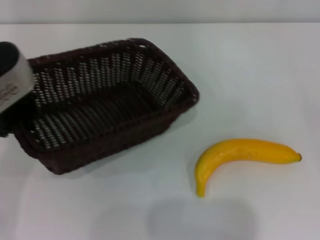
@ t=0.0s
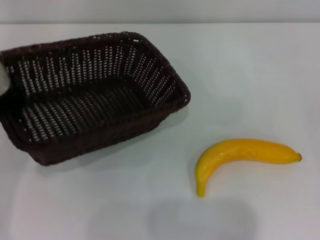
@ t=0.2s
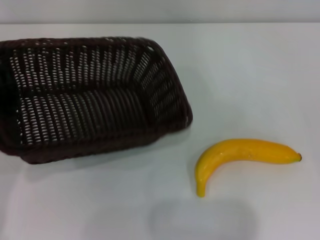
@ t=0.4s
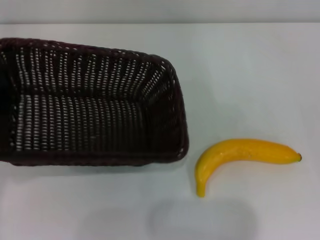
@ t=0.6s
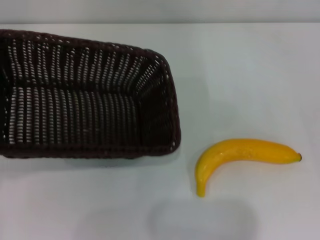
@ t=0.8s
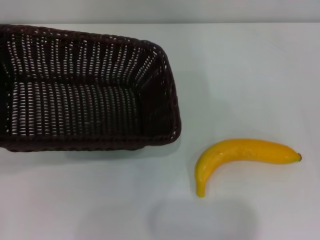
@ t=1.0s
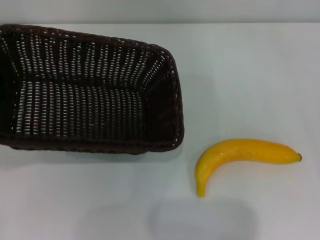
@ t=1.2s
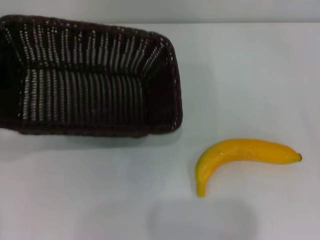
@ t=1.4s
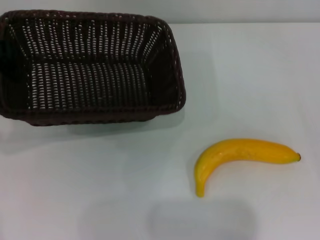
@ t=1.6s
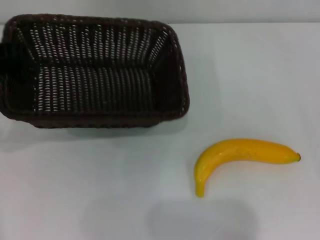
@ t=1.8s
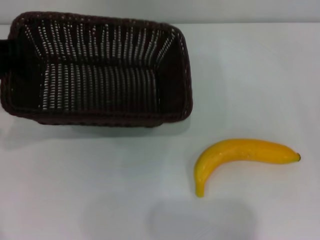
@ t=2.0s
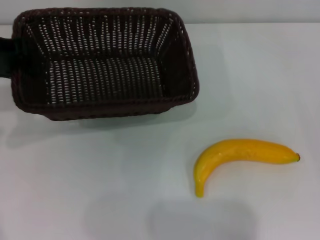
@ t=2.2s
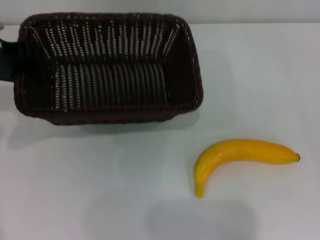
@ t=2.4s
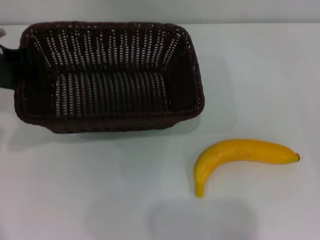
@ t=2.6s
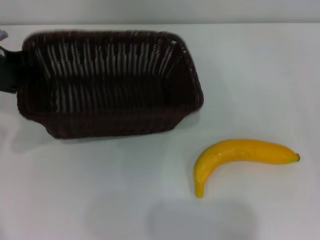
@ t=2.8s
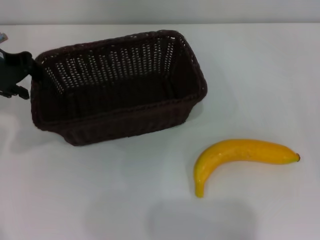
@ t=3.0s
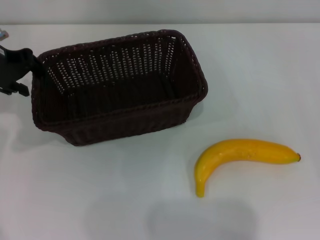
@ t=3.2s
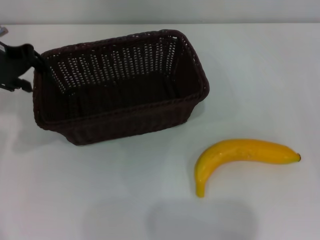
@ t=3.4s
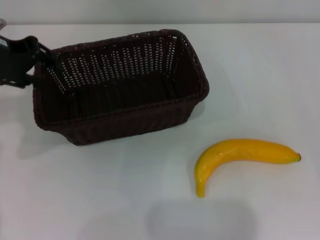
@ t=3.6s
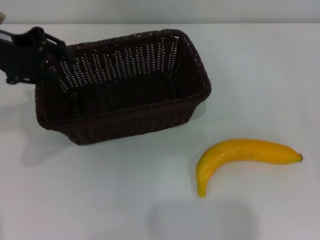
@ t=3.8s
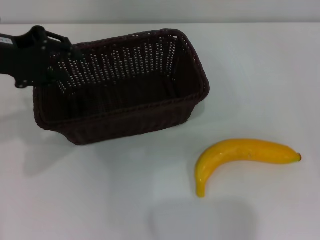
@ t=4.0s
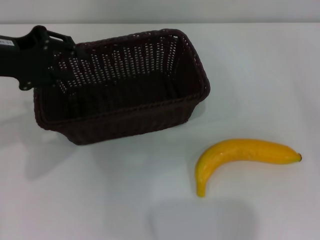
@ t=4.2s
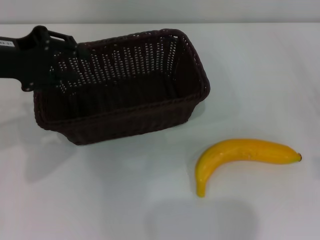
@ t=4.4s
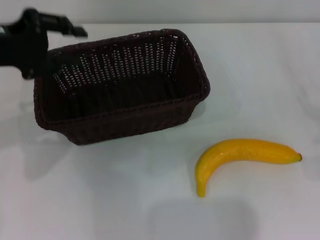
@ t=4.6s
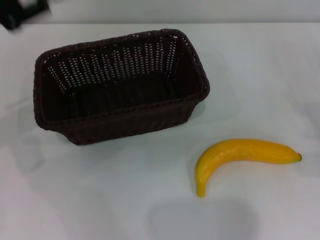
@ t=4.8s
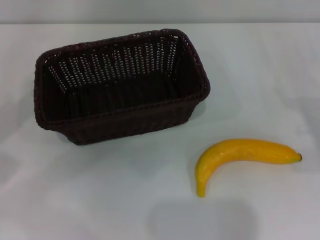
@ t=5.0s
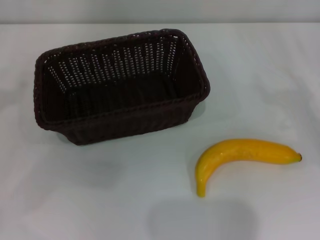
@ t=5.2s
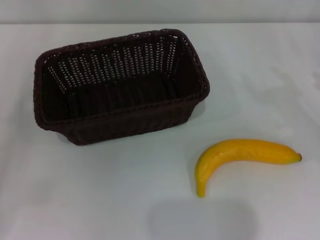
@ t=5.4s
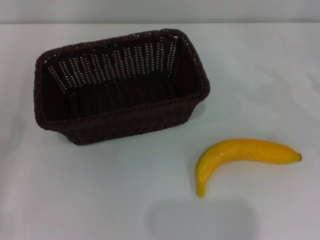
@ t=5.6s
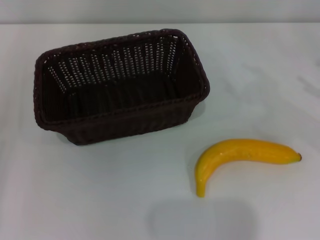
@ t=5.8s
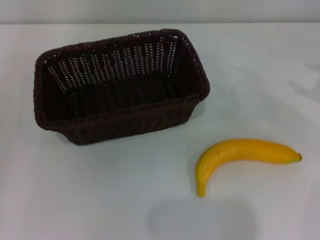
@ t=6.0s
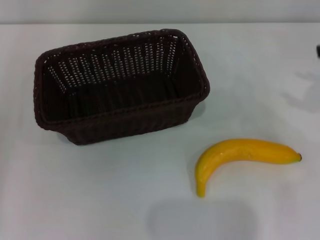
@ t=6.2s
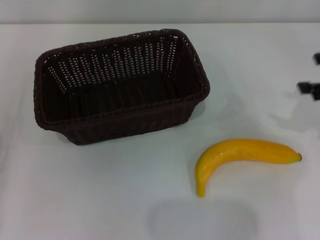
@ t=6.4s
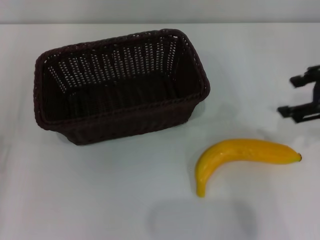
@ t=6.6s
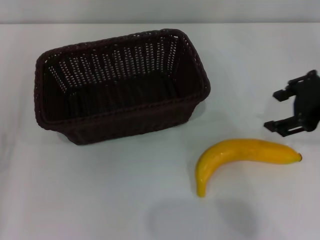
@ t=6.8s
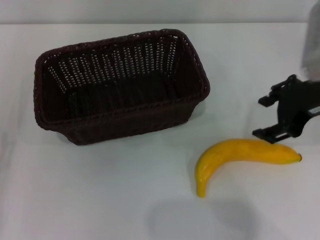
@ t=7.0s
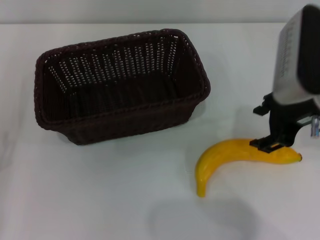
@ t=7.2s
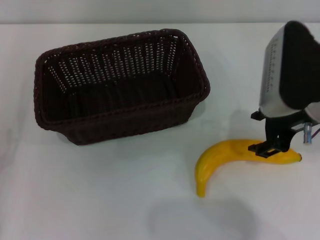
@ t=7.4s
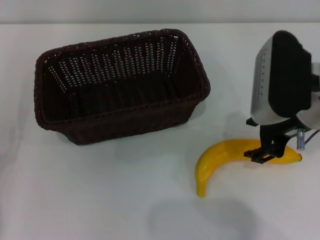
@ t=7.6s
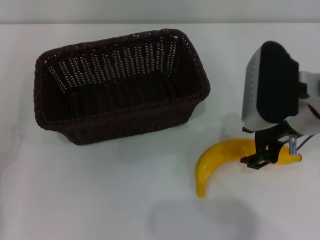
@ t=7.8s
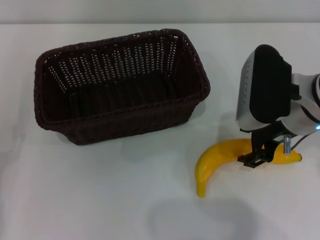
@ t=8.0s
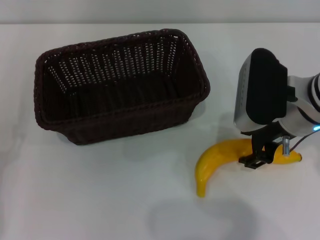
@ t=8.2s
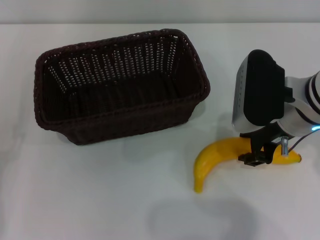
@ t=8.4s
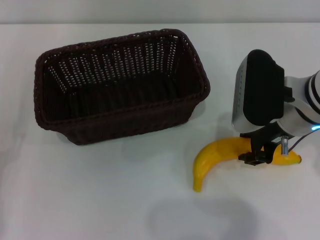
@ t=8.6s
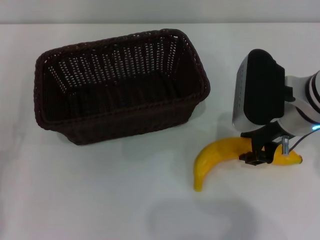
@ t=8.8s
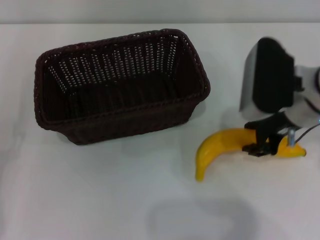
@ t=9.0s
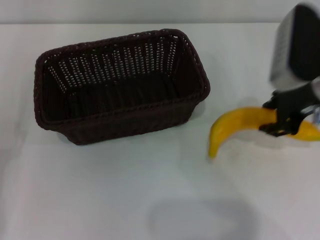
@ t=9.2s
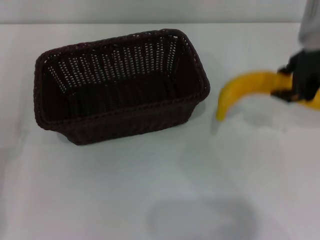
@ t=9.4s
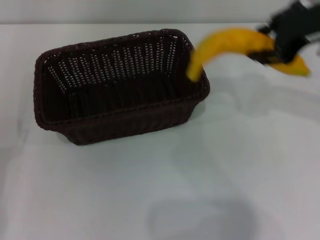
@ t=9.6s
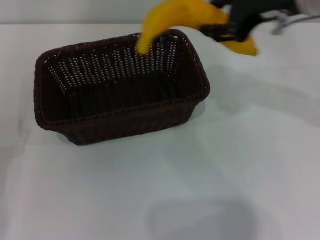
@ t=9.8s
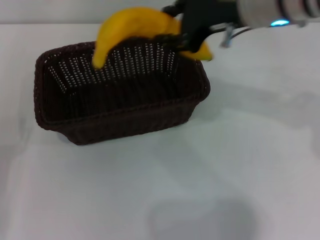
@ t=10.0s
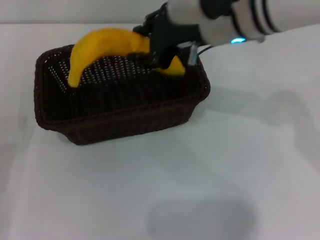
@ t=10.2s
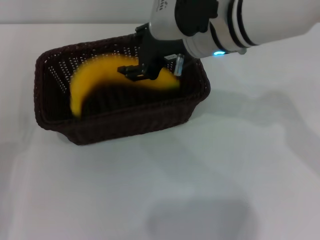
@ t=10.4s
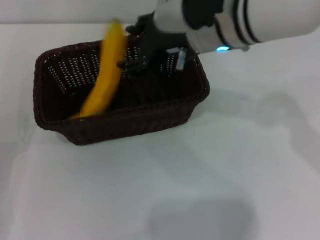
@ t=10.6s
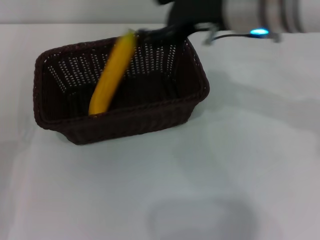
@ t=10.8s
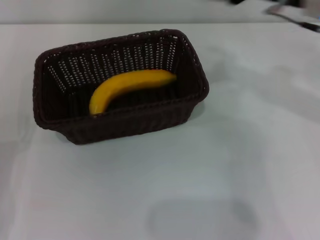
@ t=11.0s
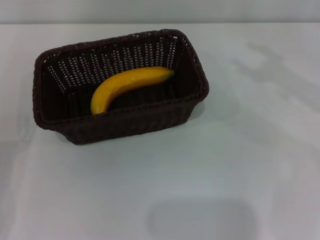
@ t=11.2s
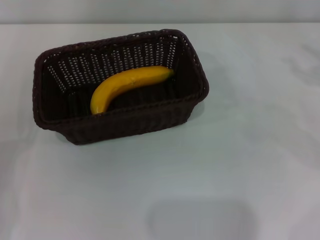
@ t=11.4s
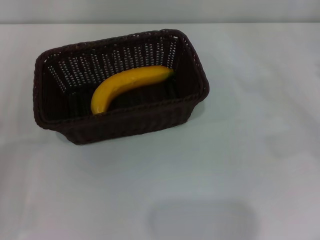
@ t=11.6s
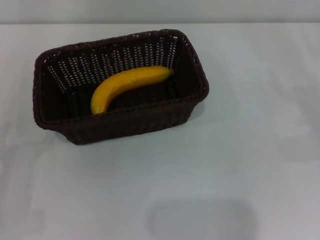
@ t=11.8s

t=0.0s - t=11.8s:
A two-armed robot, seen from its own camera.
Step, t=0.0s - t=3.8s: Place the dark basket in the center of view with the left gripper.
Step, t=4.0s - t=9.2s: Pick up the banana with the right gripper.
Step, t=9.4s - t=10.8s: Place the banana into the dark basket with the right gripper.
t=0.0s - t=1.4s: The left gripper heads to the left, covering roughly 5 cm.
t=1.4s - t=3.0s: The left gripper moves some 5 cm.
t=3.0s - t=4.4s: The left gripper travels backward by some 5 cm, and opens up.
t=4.4s - t=6.0s: The left gripper shifts about 30 cm downward, backward and to the left, and opens.
t=6.0s - t=7.4s: The right gripper heads to the left, covering roughly 20 cm.
t=7.4s - t=8.8s: The right gripper closes up.
t=8.8s - t=10.4s: The right gripper travels to the left, upward and forward by about 15 cm.
t=10.4s - t=11.8s: The right gripper shifts about 35 cm to the right and downward, and opens its fingers.

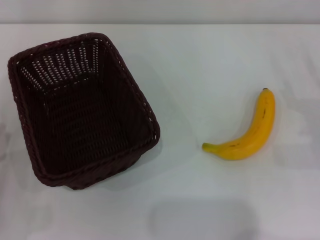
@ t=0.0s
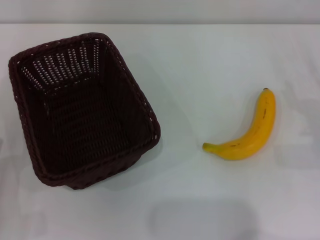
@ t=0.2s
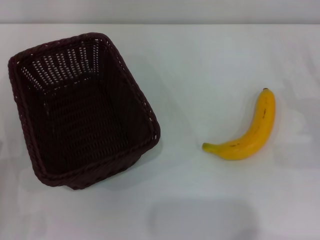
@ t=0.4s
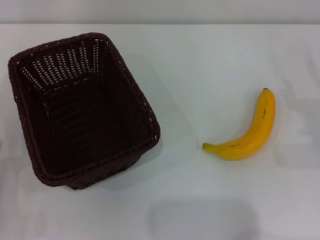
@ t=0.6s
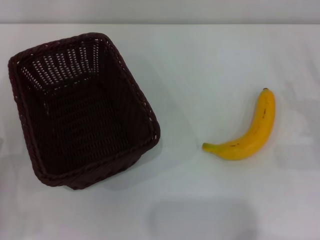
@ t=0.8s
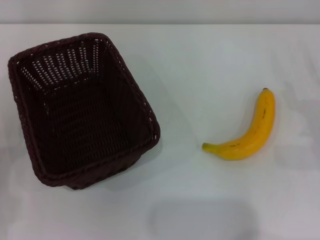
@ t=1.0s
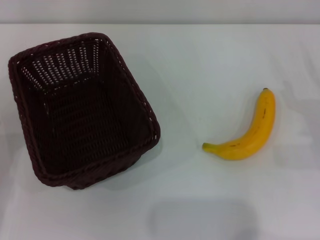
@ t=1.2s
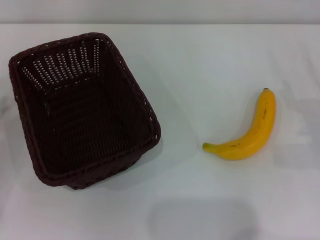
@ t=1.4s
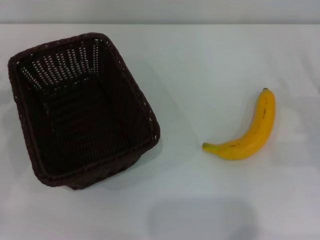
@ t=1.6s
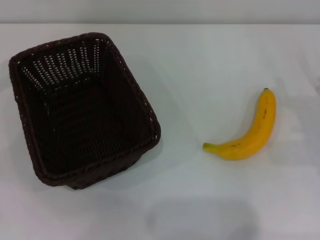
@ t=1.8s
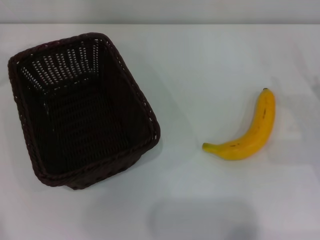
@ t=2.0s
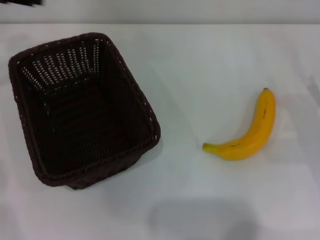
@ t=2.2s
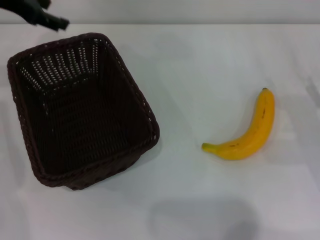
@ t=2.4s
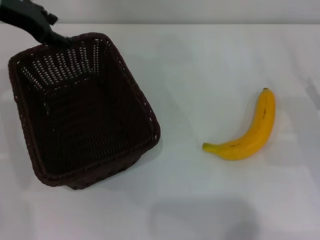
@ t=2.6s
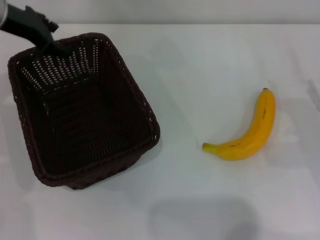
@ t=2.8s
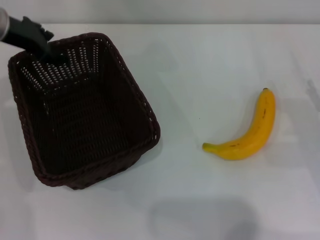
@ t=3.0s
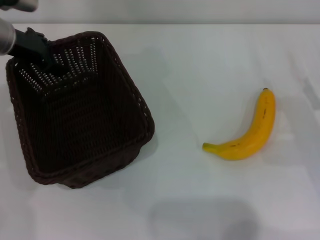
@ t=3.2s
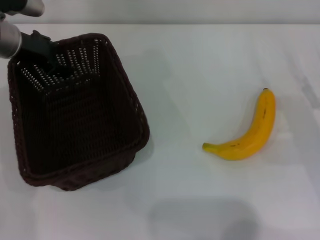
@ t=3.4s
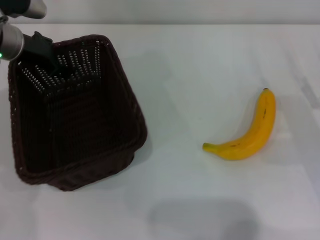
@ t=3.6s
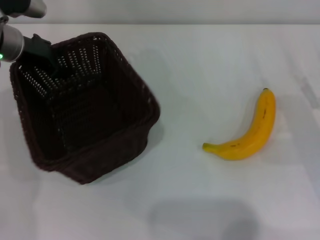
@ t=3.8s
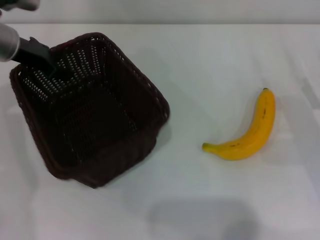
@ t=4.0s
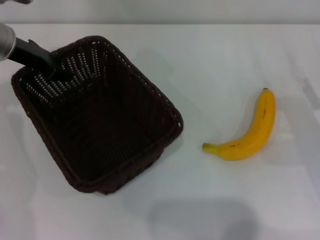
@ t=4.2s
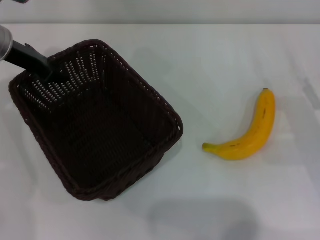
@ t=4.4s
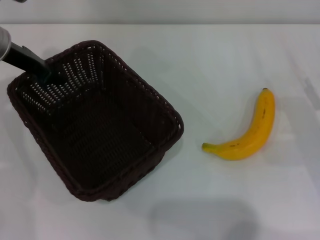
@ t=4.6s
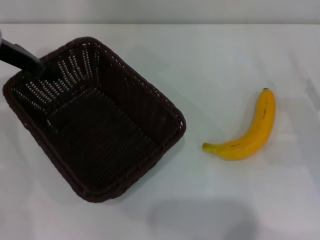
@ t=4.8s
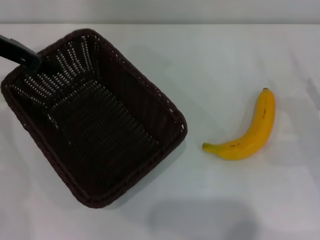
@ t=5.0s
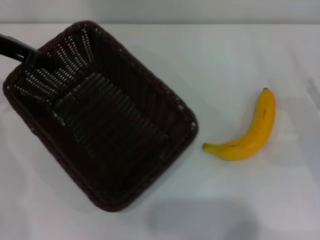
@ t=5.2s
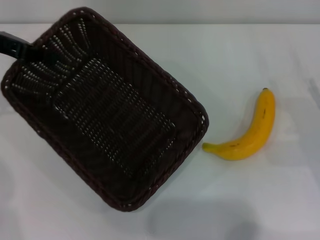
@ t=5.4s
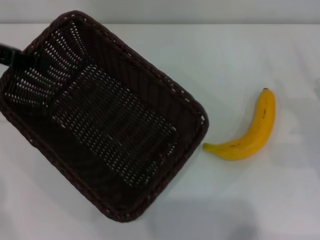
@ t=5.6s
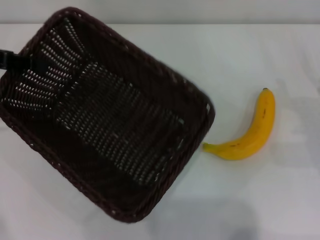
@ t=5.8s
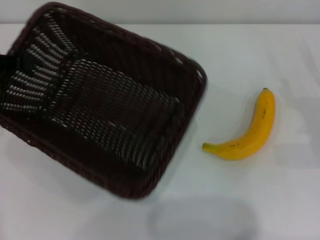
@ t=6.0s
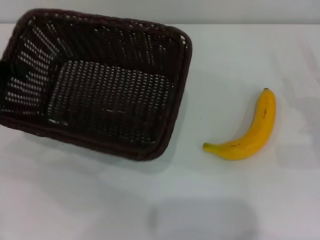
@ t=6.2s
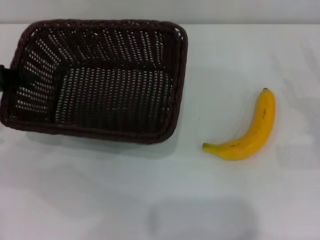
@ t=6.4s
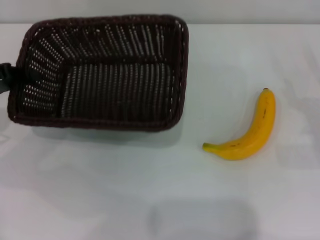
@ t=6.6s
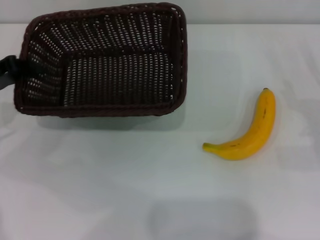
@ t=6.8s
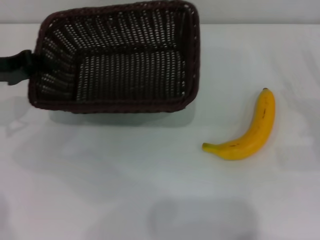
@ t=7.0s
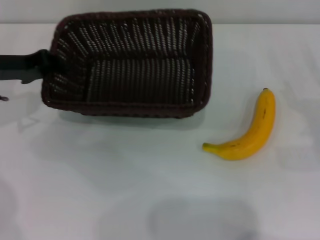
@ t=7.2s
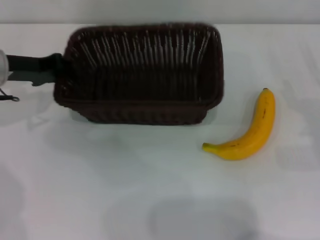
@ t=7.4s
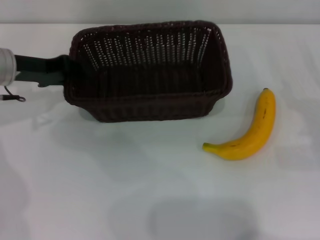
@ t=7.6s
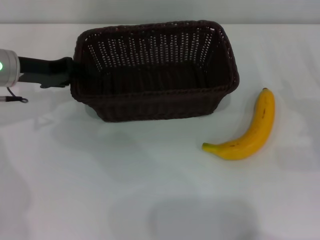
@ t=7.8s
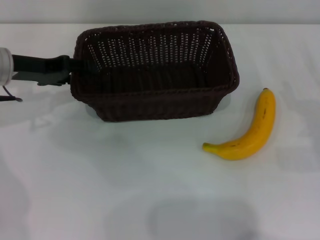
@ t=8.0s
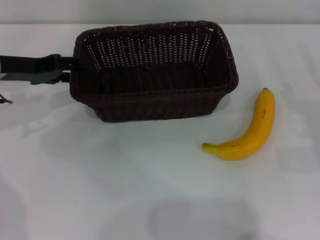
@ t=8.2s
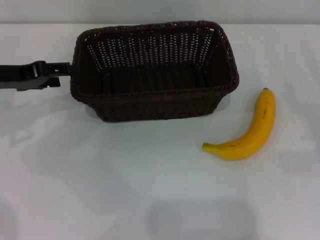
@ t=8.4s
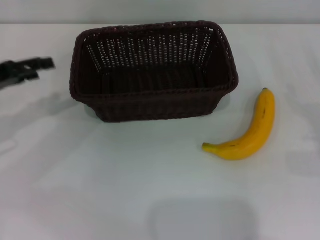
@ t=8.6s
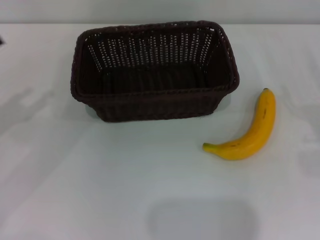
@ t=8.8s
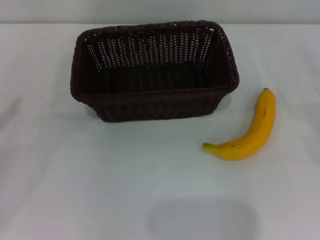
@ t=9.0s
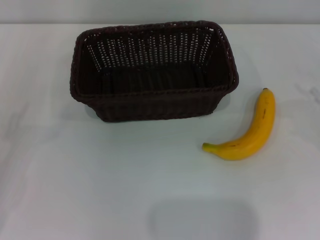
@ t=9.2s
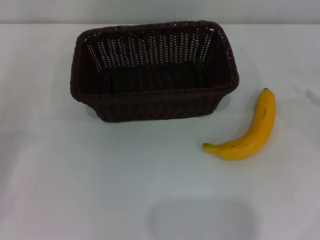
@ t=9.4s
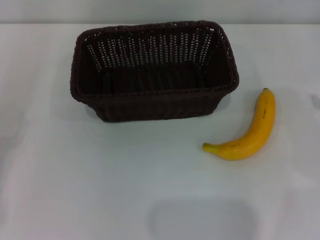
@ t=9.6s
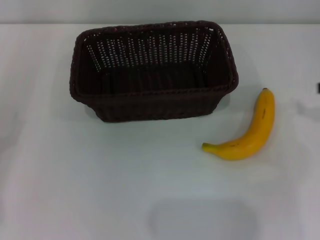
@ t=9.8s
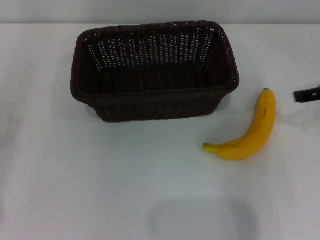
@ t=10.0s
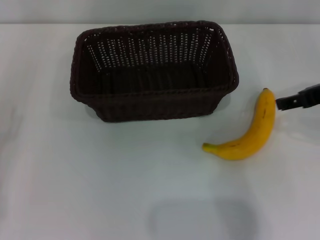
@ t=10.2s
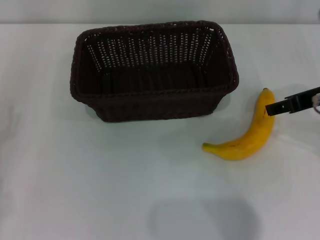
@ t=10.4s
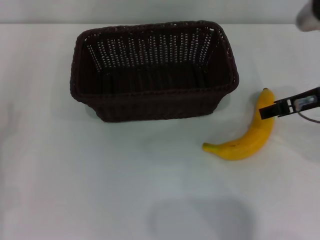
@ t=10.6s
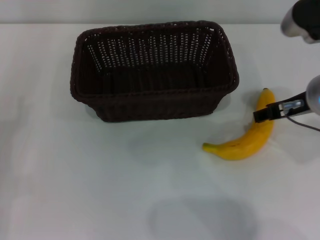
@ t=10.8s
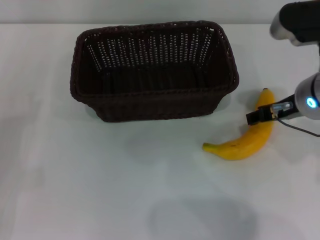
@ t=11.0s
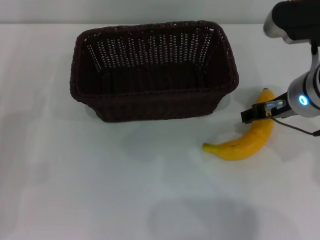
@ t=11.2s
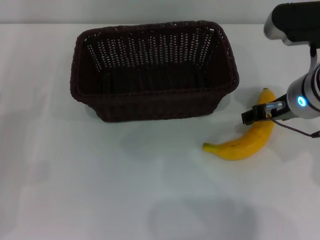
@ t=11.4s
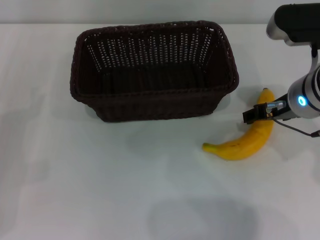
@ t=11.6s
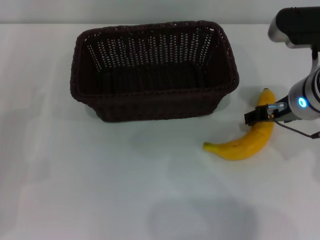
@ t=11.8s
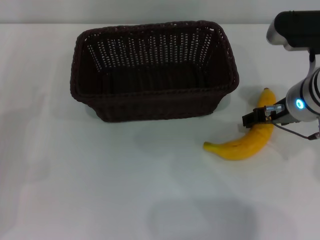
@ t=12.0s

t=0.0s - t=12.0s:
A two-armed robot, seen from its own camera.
Step, t=0.0s - t=5.0s: Pick up the dark basket with the left gripper.
Step, t=5.2s - t=8.0s: Place the dark basket in the center of view with the left gripper.
t=0.0s - t=1.6s: The left gripper goes approximately 20 cm upward, forward and to the left.
t=1.6s - t=3.0s: The left gripper is displaced forward and to the right by some 20 cm.
t=3.0s - t=4.4s: The left gripper closes its fingers.
t=4.4s - t=6.0s: The left gripper goes about 10 cm to the left and backward, and closes.
t=6.0s - t=7.6s: The left gripper is displaced to the right and downward by roughly 10 cm.
t=7.6s - t=9.0s: The left gripper moves backward and to the left, some 20 cm, and opens.
t=9.0s - t=10.4s: The right gripper heads to the left and upward, covering approximately 20 cm.
t=10.4s - t=12.0s: The right gripper heads to the left and downward, covering about 10 cm.
